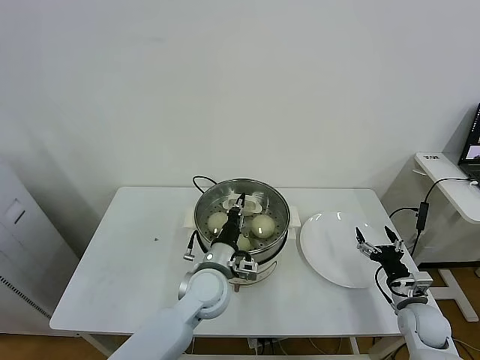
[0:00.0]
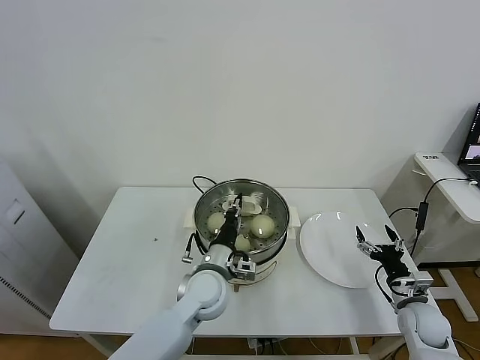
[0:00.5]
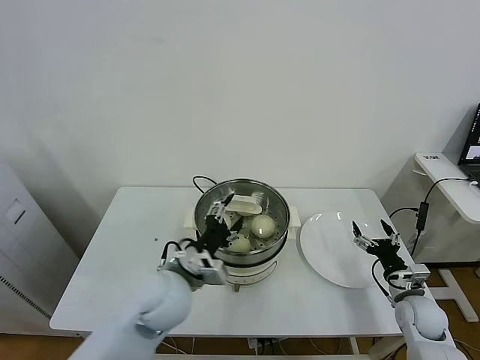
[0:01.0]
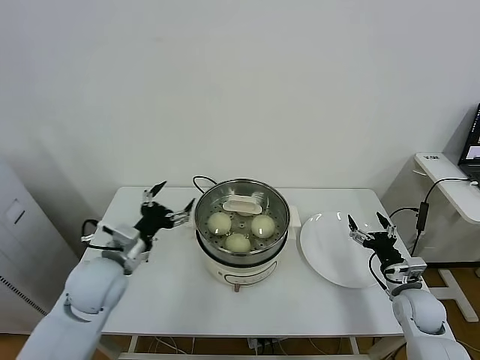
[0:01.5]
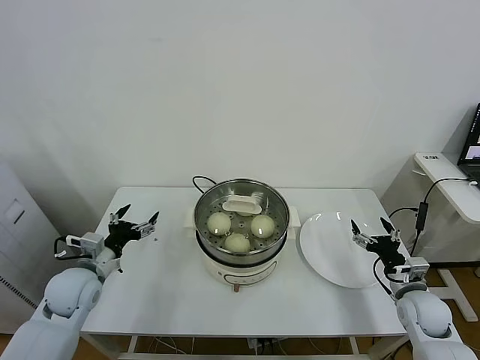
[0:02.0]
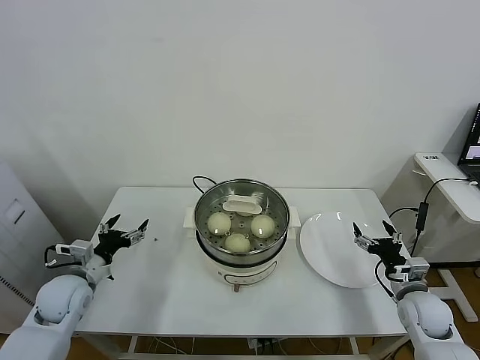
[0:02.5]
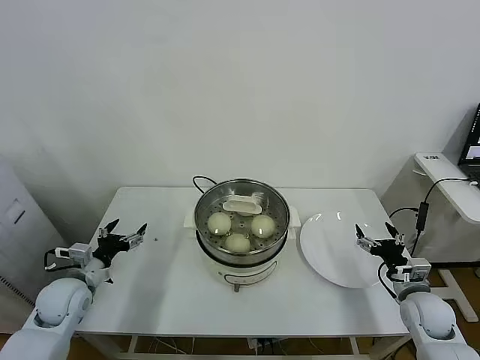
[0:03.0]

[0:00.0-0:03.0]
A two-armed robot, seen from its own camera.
Task of the whole recording: take steamed baozi put them in steamer.
0:00.0 to 0:01.5: The left gripper shifts some 20 cm to the left and upward, and opens its fingers.
0:01.5 to 0:03.0: The left gripper heads to the left and downward, covering some 15 cm.

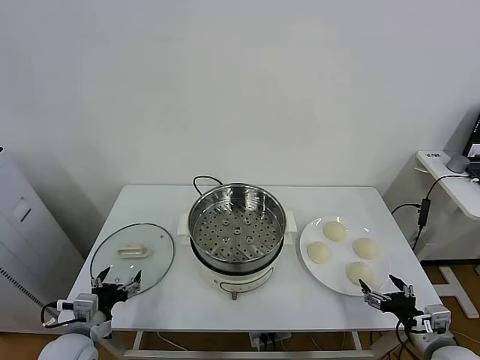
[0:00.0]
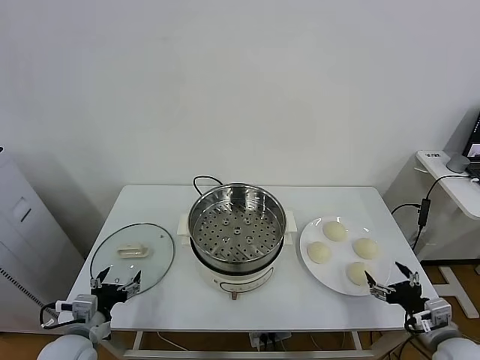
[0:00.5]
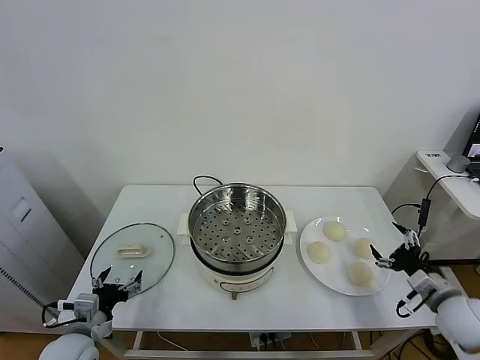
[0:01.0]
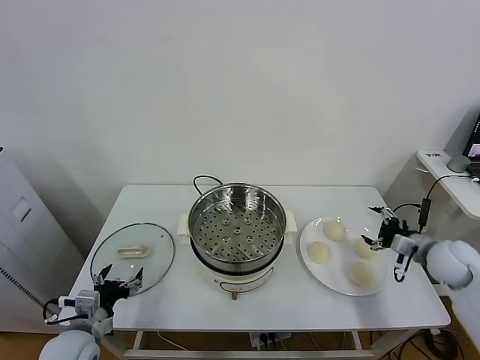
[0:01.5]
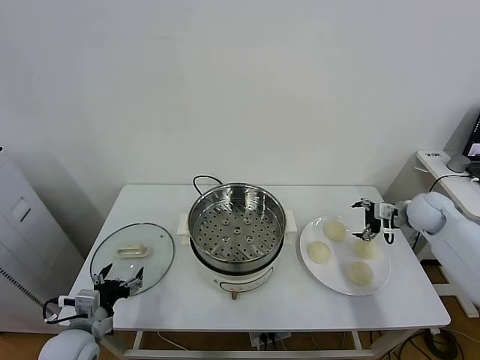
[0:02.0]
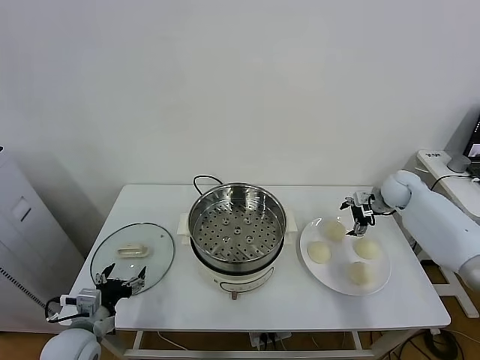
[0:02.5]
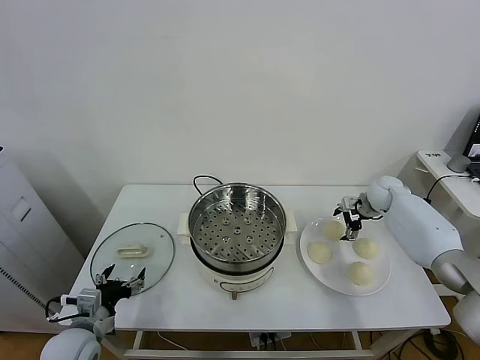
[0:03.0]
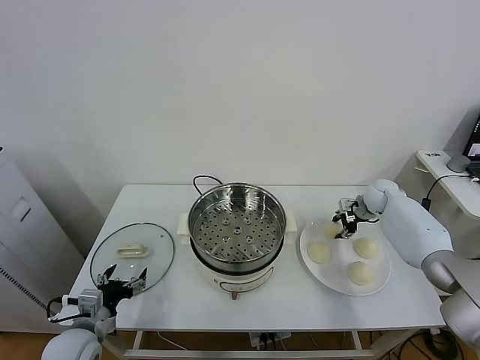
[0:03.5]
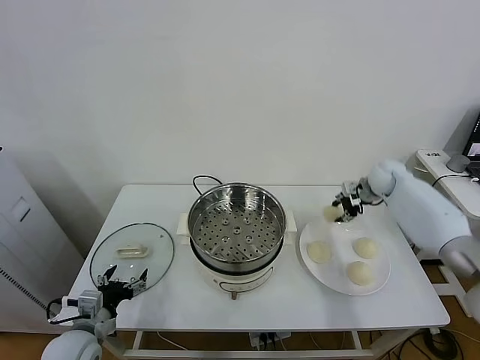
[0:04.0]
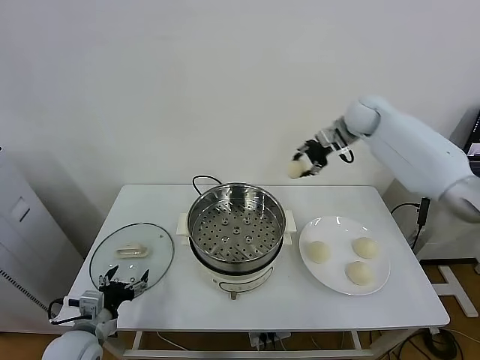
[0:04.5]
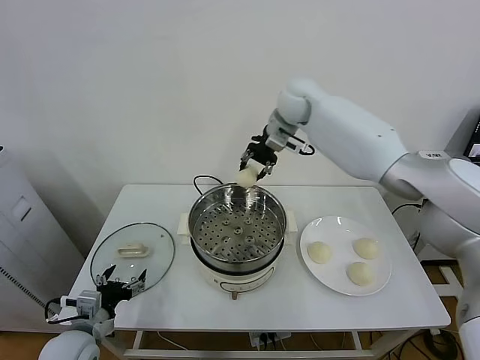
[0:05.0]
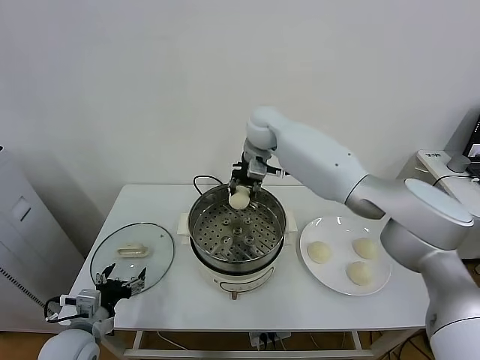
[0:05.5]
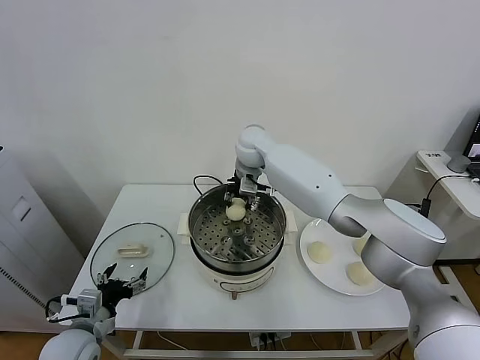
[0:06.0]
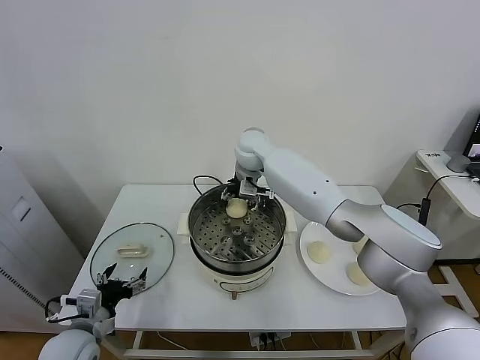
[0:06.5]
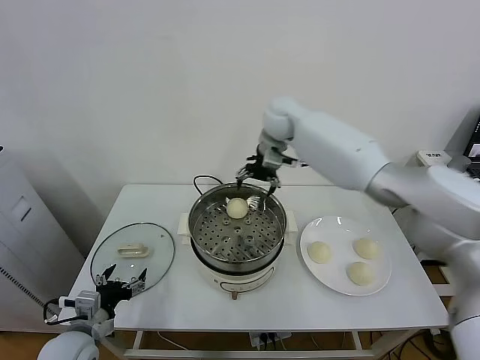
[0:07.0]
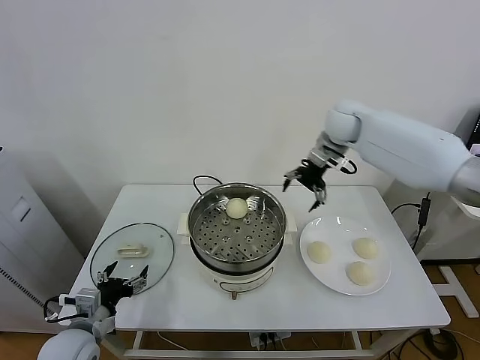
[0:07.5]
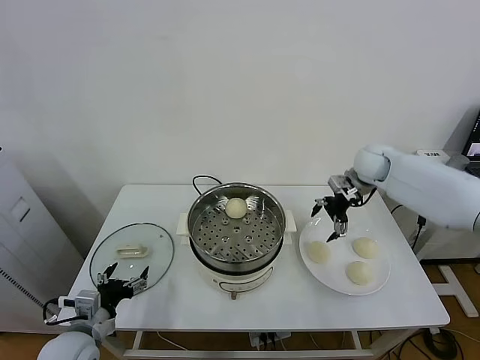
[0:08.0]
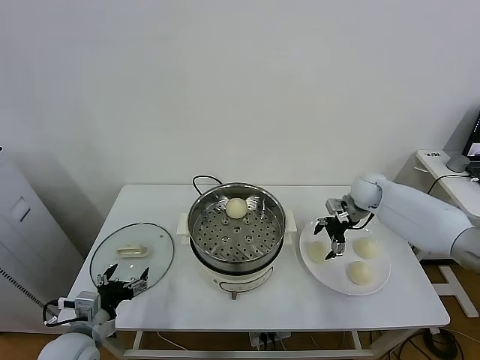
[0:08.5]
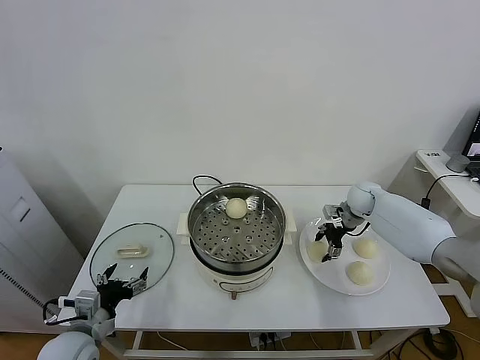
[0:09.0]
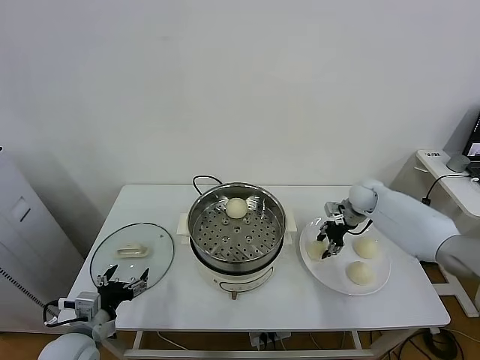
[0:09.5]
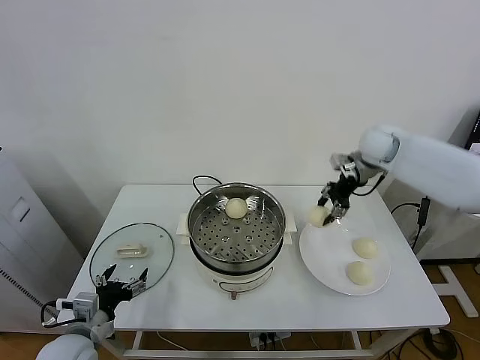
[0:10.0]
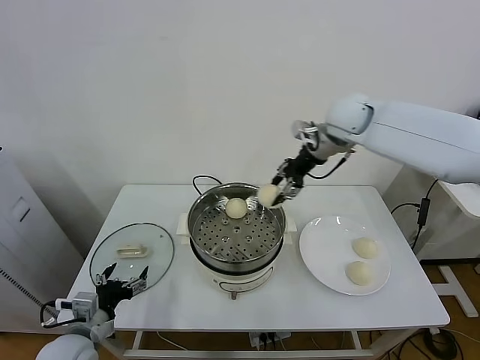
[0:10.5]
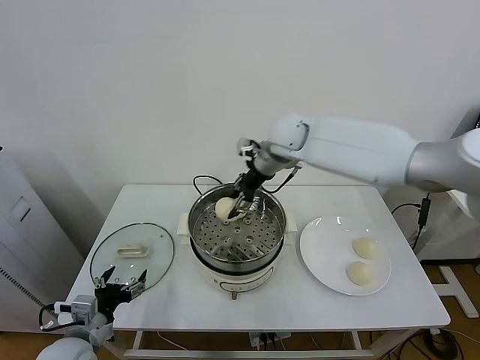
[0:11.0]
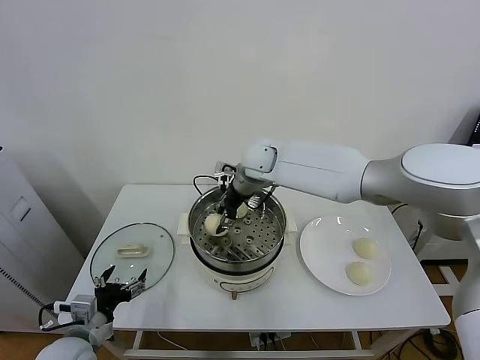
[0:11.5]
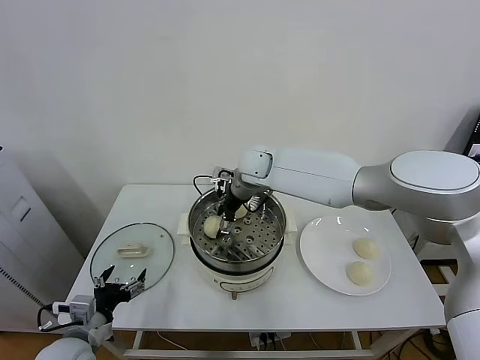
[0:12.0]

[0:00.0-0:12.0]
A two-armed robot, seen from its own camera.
Task of the whole recording: take steamed baozi put them in steamer.
Step, 0:00.0 to 0:03.0: Grasp the baozi in the plate with right gripper.
Step, 0:04.0 to 0:06.5: Place the baozi on the steamer with right gripper.
Step, 0:07.0 to 0:09.0: Grasp the baozi in the plate with right gripper.
0:02.0 to 0:04.0: The right gripper travels forward, to the left and upward by about 15 cm, and closes its fingers.
0:04.0 to 0:06.0: The right gripper shifts roughly 35 cm to the left.
0:06.0 to 0:08.0: The right gripper is displaced to the right by about 30 cm, and opens.
0:08.0 to 0:10.0: The right gripper goes about 10 cm upward, and closes its fingers.
0:10.0 to 0:12.0: The right gripper shifts about 30 cm to the left, and opens up.

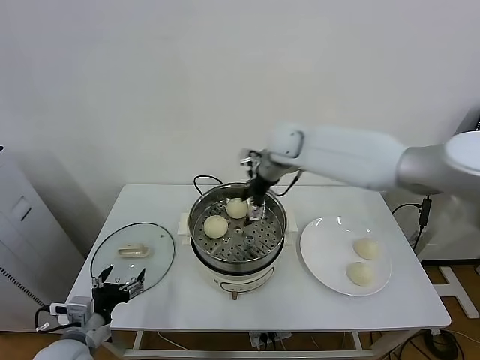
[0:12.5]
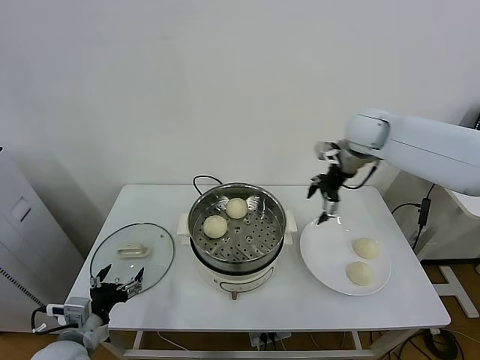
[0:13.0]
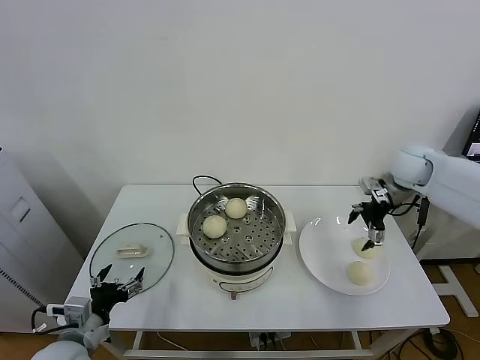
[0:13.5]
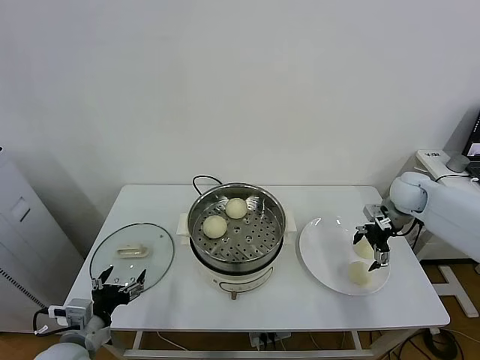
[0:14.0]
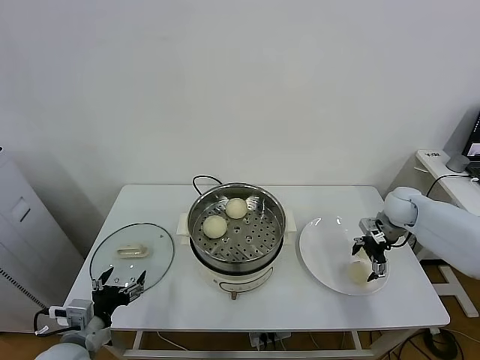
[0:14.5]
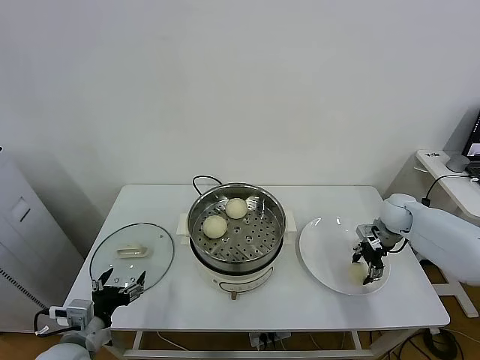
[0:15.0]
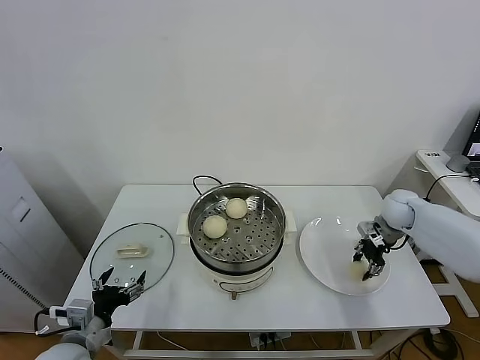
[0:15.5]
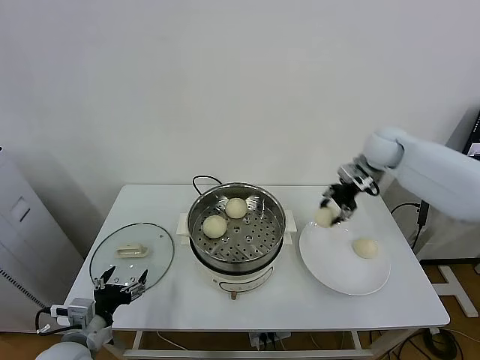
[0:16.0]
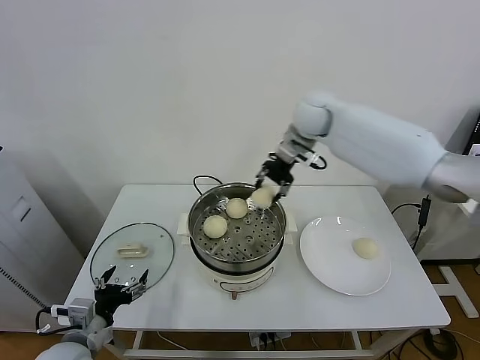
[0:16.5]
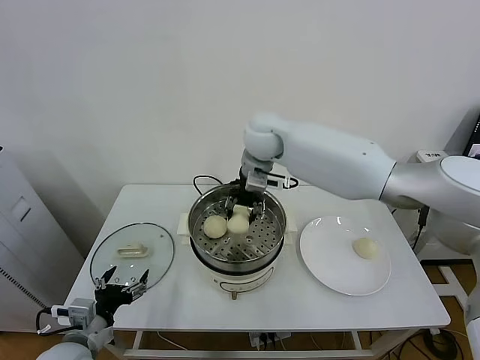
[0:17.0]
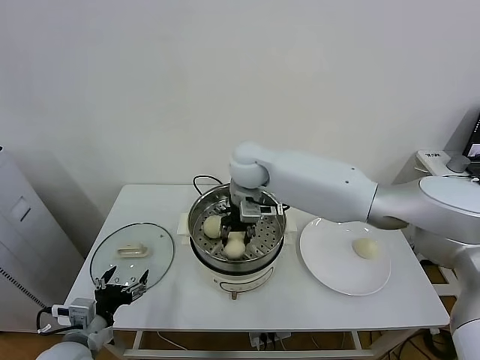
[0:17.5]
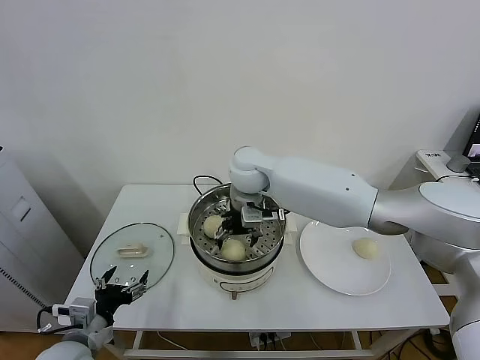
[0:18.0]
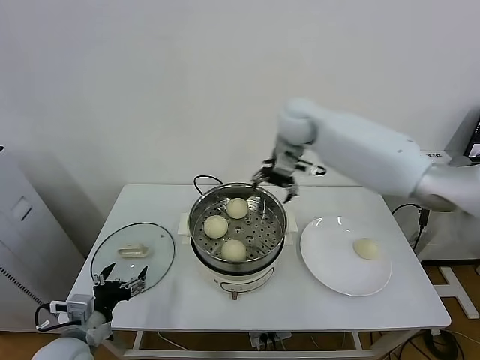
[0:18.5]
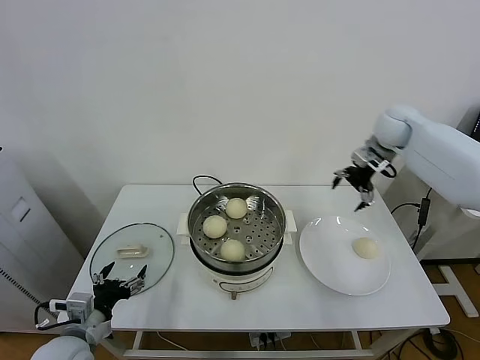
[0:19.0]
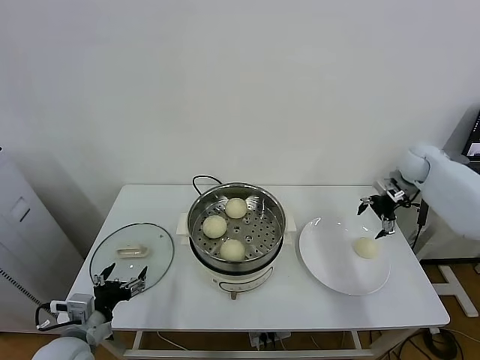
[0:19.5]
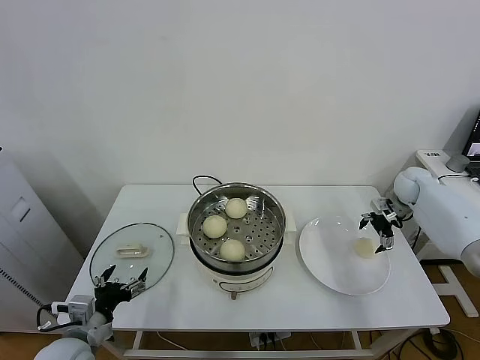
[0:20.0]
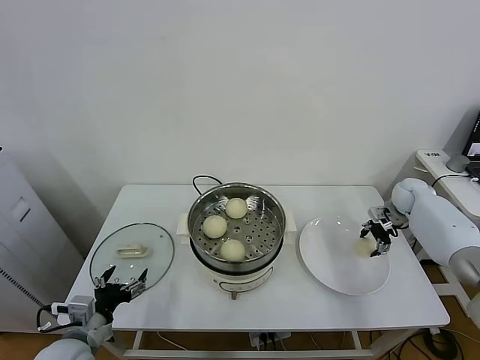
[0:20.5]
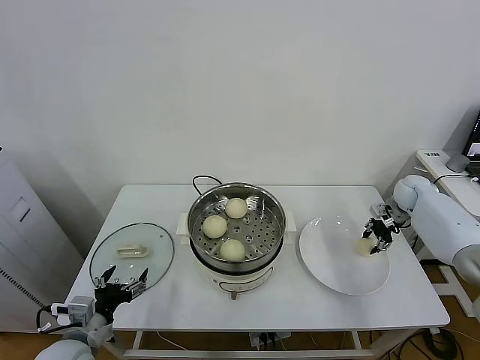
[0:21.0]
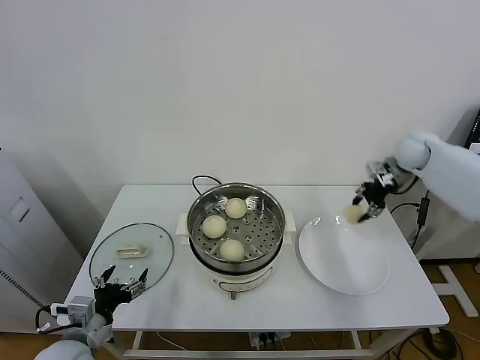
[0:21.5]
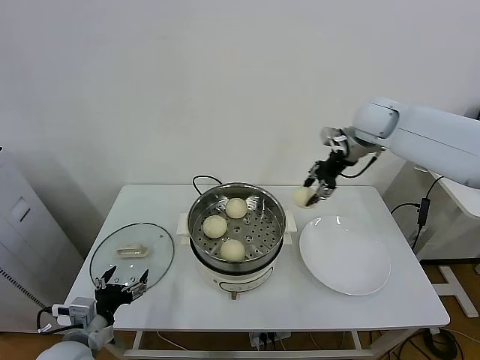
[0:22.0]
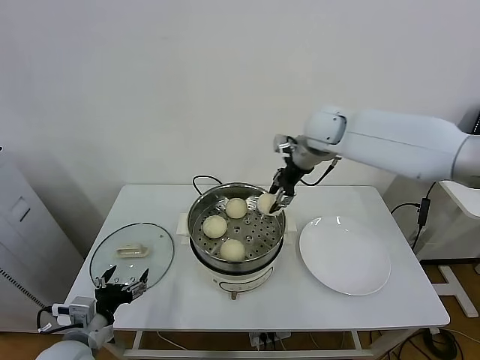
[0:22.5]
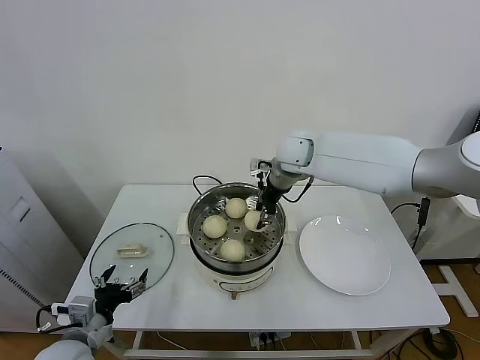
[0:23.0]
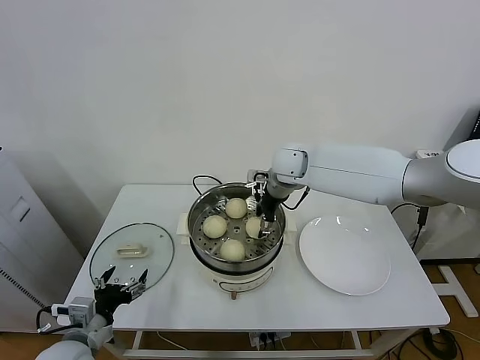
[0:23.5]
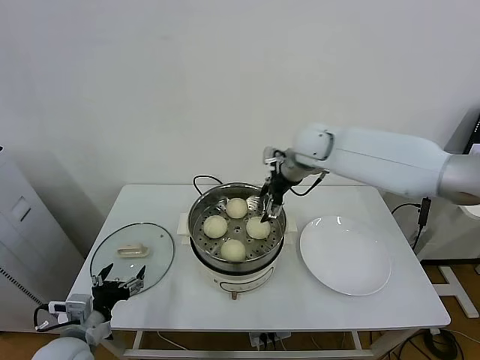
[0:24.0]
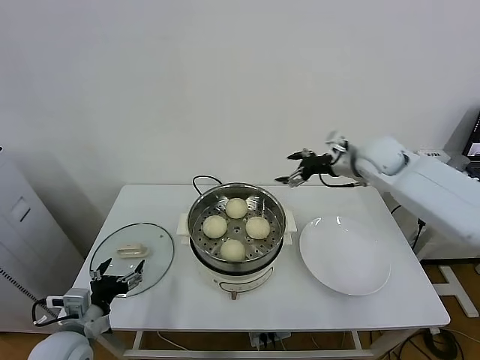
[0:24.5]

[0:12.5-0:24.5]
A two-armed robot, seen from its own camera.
Task of the whole recording: take steamed baozi put them in steamer.
Step, 0:12.5 to 0:15.0: Grasp the baozi in the plate with right gripper.
Step, 0:15.5 to 0:18.0: Place the baozi on the steamer with right gripper.
Step, 0:18.5 to 0:20.5: Grasp the baozi in the plate with right gripper.
Step, 0:21.0 to 0:23.5: Place the baozi on the steamer with right gripper.
0:12.5 to 0:14.5: The right gripper goes approximately 35 cm to the right and downward.
0:14.5 to 0:16.5: The right gripper moves to the left and upward, approximately 35 cm, and closes its fingers.
0:16.5 to 0:18.5: The right gripper travels to the left and back again, about 15 cm each way, and opens.
0:18.5 to 0:20.5: The right gripper travels to the right and downward by roughly 40 cm, and closes its fingers.
0:20.5 to 0:22.5: The right gripper shifts some 35 cm to the left and upward, and closes.
0:22.5 to 0:24.5: The right gripper heads to the right and downward, covering roughly 15 cm, and opens up.
